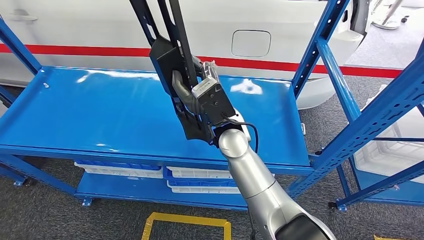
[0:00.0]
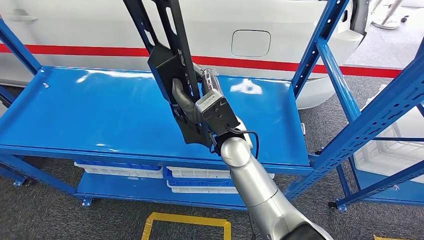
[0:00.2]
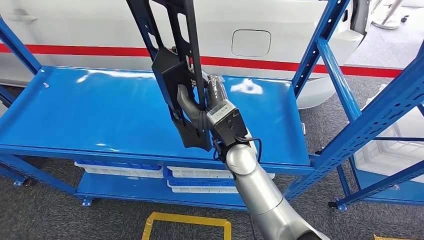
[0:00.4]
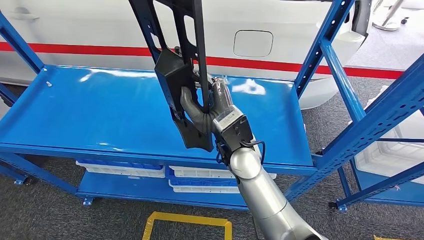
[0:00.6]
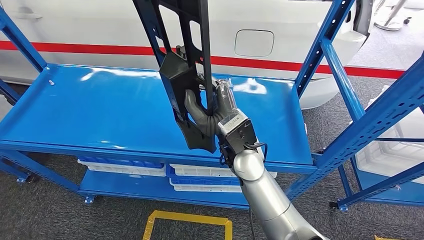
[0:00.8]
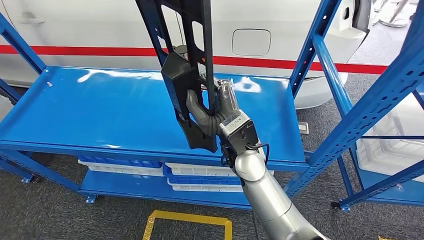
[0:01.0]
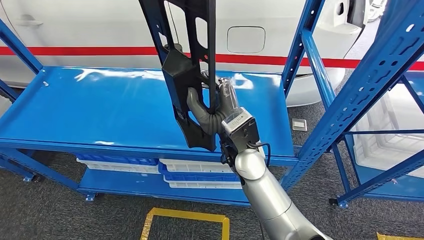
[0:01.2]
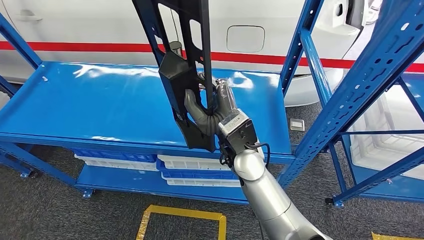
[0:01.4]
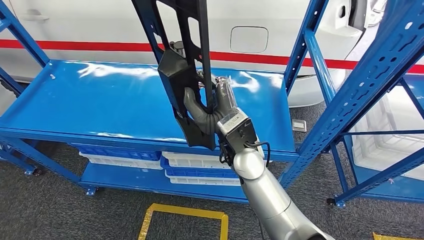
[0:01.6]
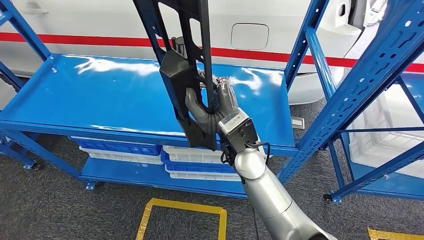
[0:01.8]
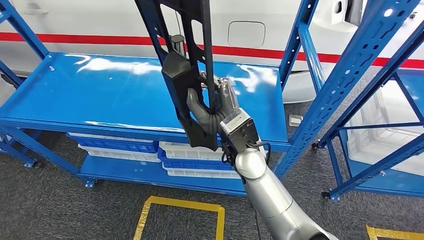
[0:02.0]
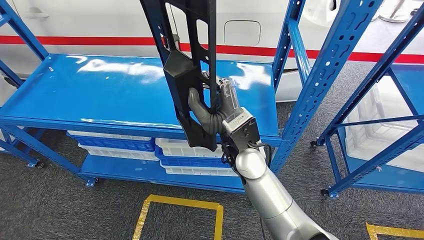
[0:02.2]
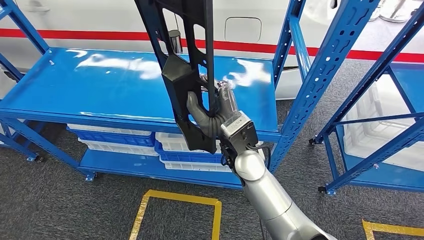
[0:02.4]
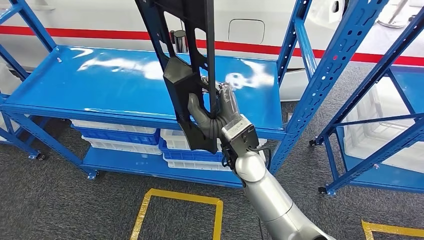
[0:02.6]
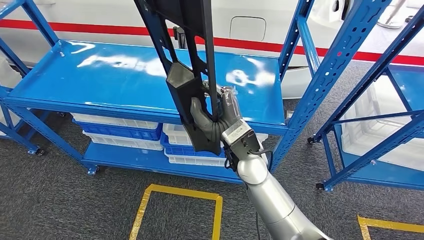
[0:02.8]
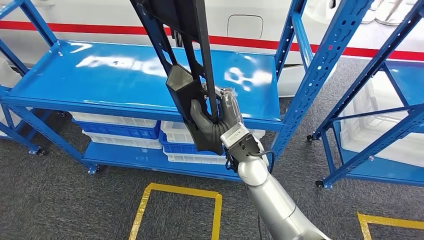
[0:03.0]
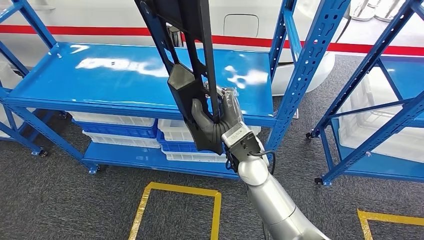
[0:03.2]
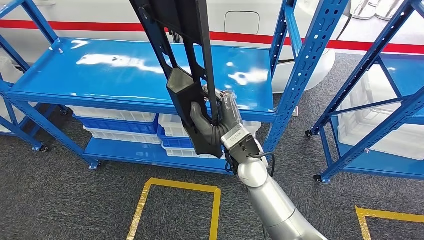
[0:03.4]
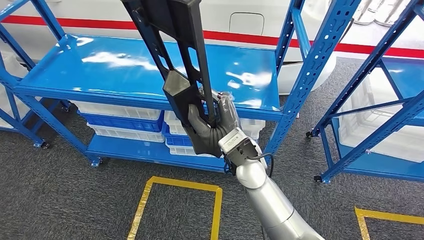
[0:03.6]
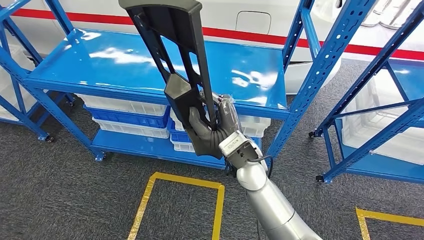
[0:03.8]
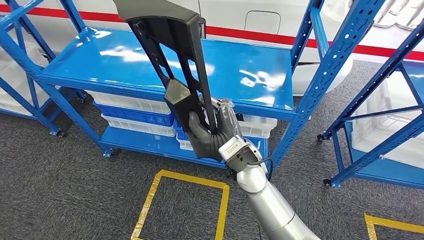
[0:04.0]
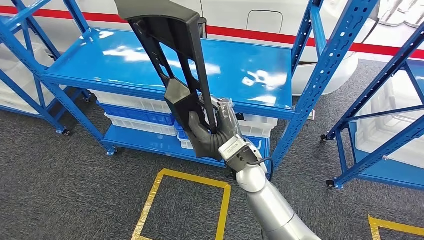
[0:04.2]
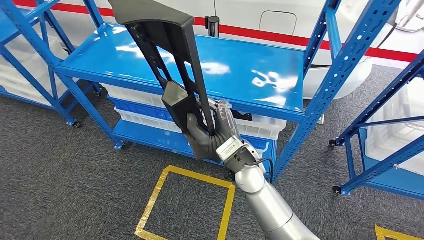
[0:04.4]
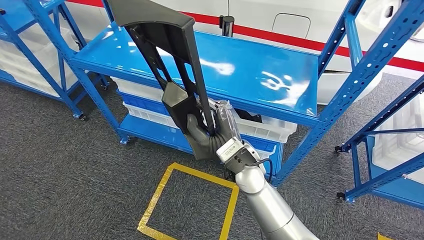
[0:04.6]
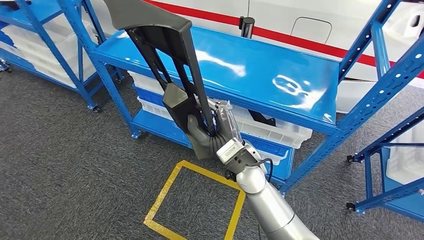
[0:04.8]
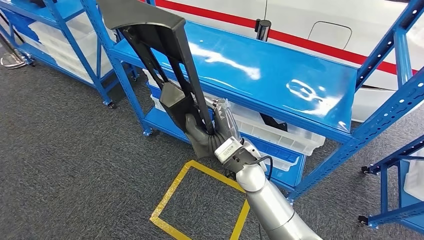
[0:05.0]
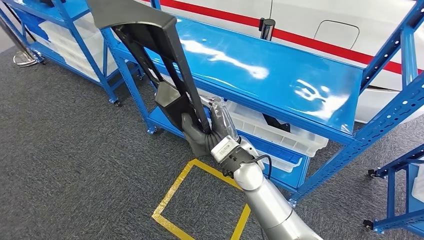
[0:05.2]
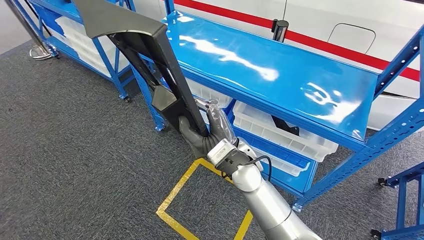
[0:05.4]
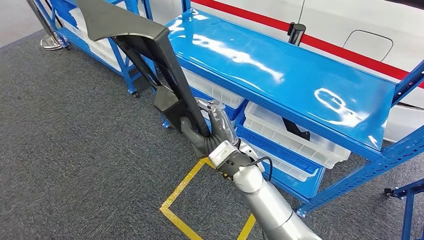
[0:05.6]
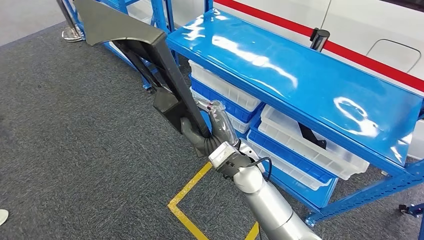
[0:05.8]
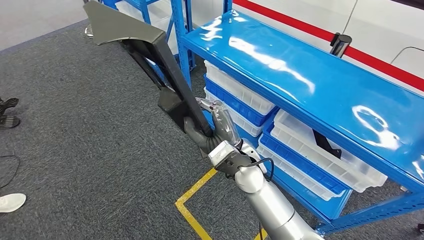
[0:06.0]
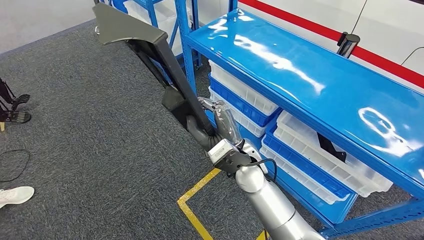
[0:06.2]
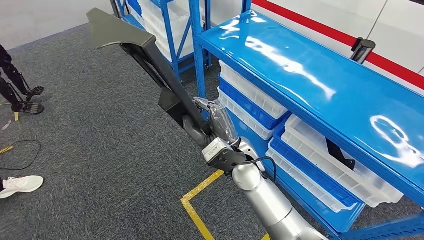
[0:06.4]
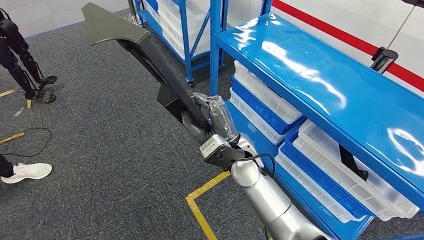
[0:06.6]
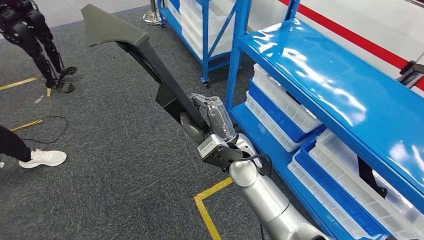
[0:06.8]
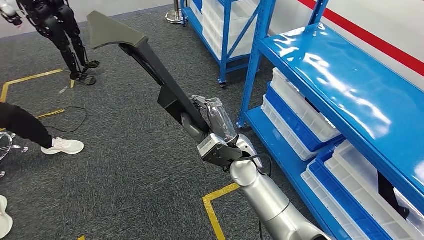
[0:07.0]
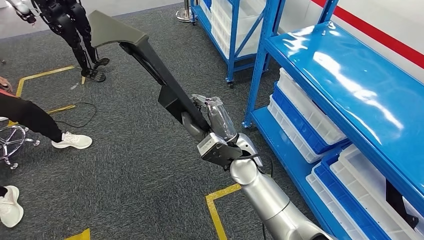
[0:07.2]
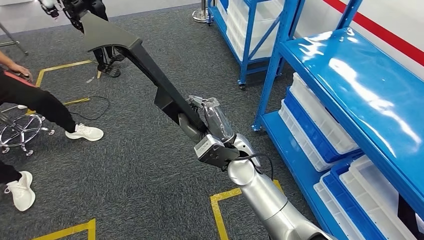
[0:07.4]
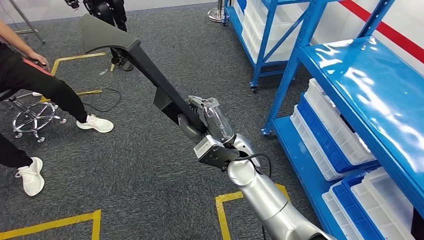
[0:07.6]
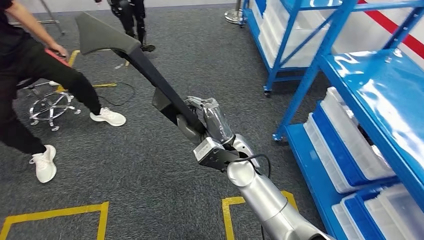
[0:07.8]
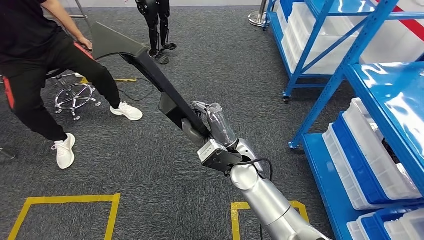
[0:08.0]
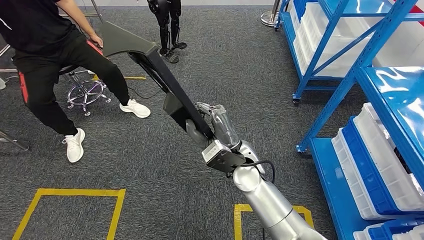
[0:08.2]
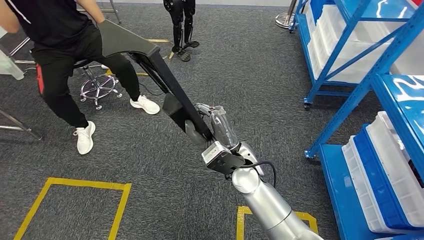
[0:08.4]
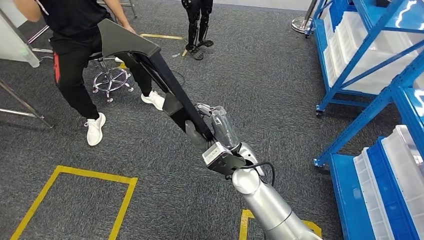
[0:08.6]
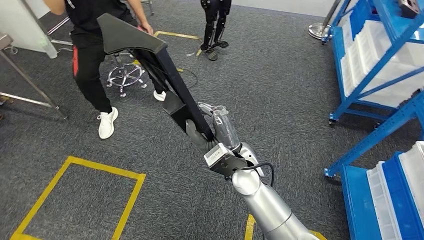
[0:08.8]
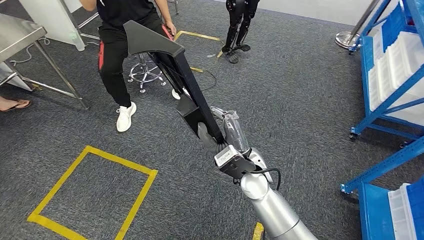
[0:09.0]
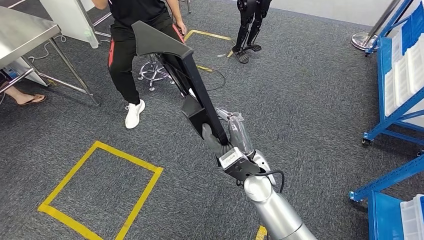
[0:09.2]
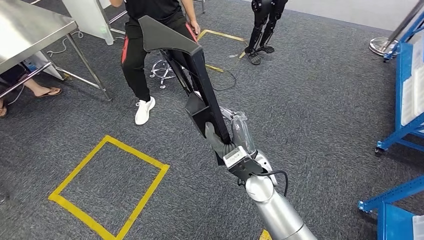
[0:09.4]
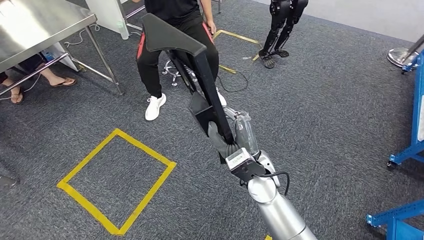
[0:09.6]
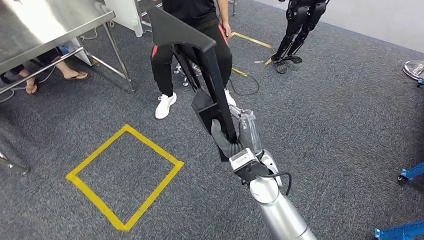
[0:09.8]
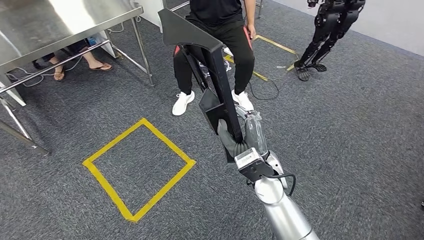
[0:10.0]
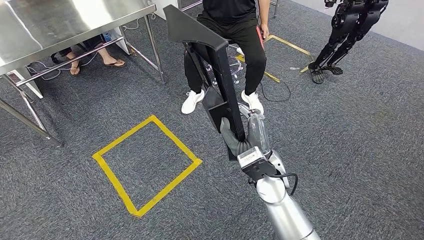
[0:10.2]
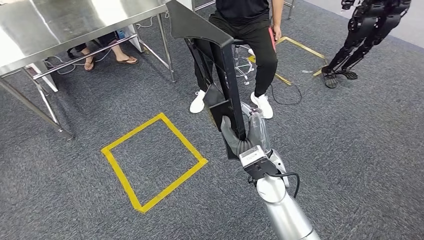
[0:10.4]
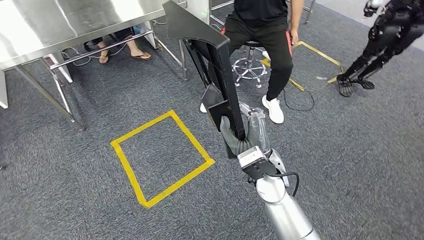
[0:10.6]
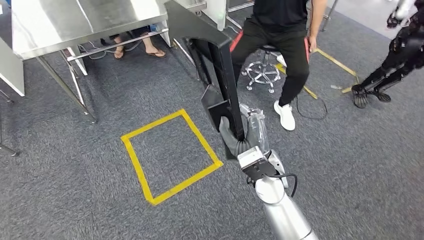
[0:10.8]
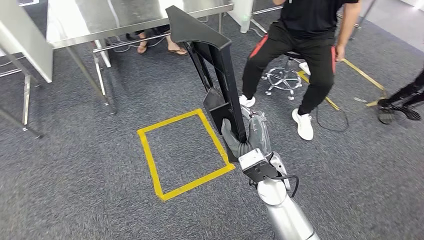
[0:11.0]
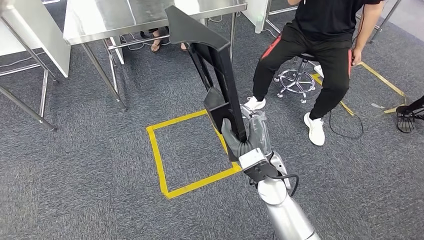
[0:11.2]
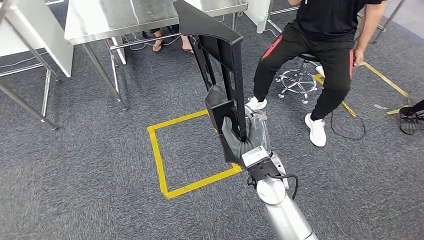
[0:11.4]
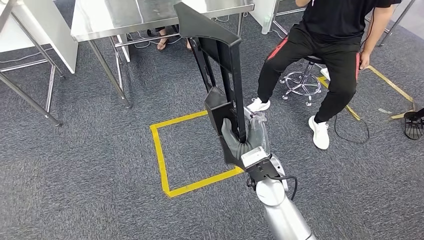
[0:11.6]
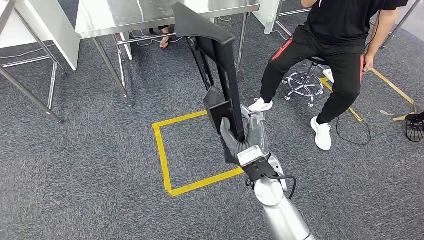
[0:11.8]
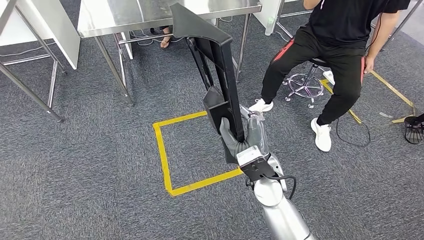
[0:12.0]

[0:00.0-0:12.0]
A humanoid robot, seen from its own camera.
Step, 0:00.0 to 0:04.4: Pick up the large material from the shelf.

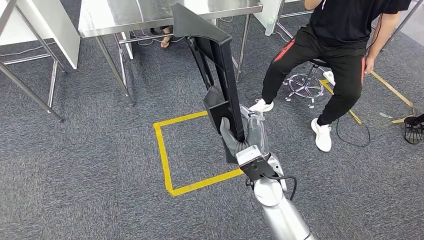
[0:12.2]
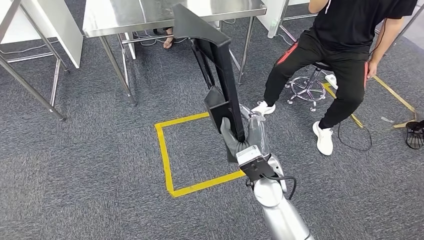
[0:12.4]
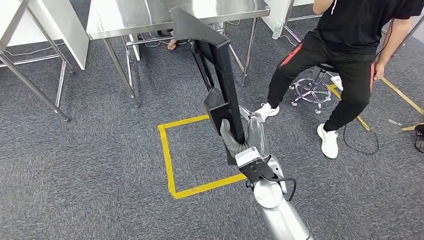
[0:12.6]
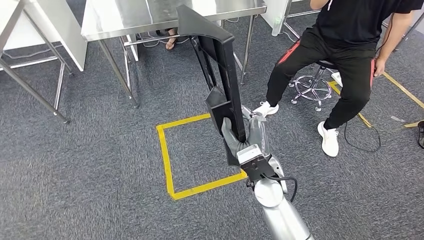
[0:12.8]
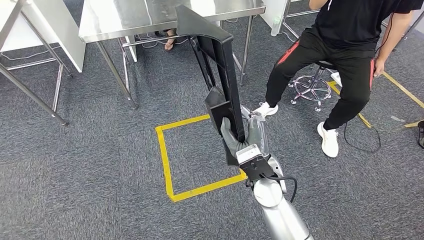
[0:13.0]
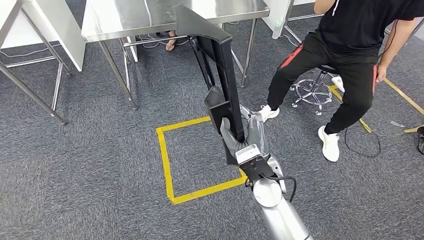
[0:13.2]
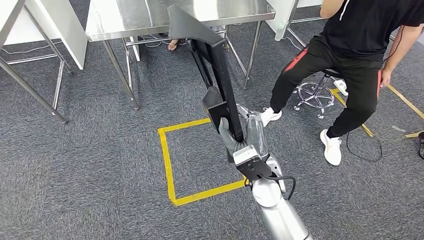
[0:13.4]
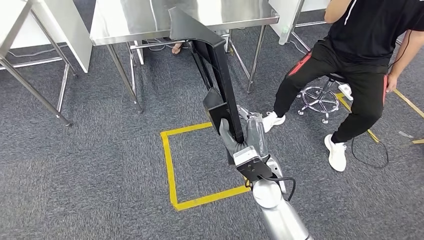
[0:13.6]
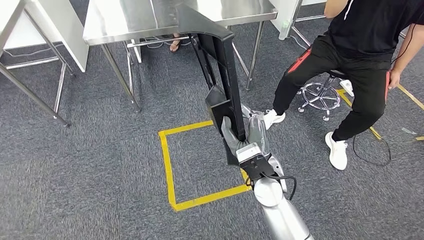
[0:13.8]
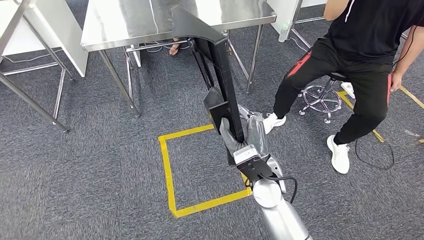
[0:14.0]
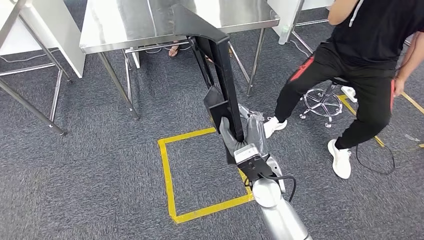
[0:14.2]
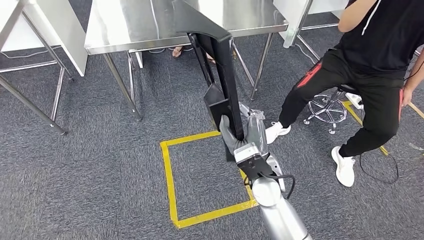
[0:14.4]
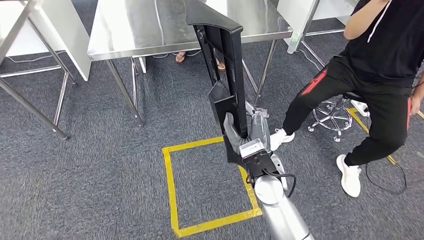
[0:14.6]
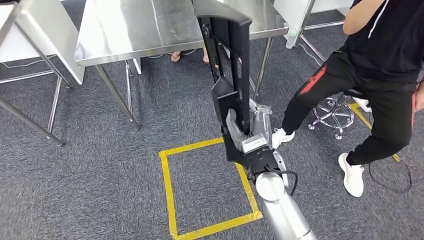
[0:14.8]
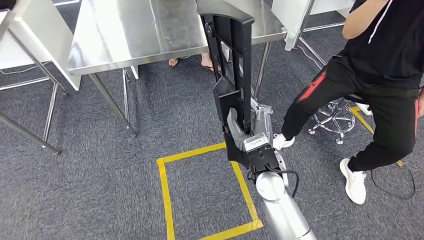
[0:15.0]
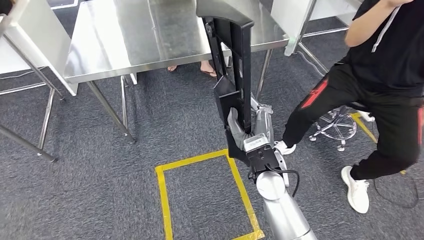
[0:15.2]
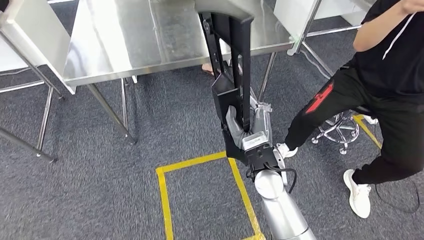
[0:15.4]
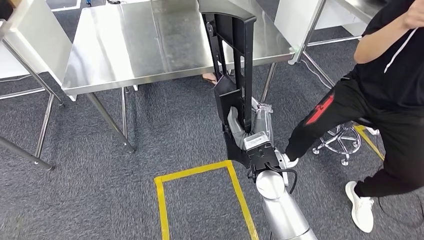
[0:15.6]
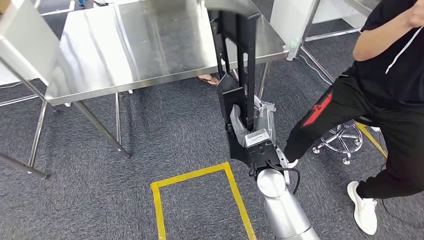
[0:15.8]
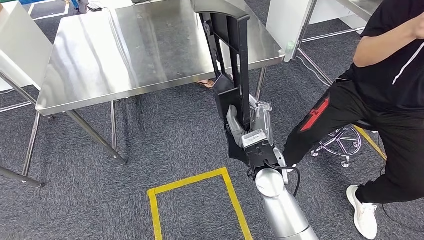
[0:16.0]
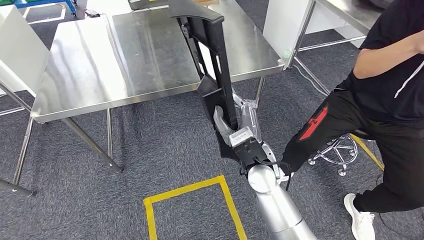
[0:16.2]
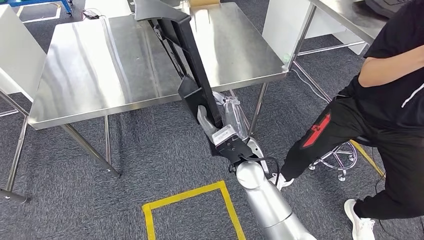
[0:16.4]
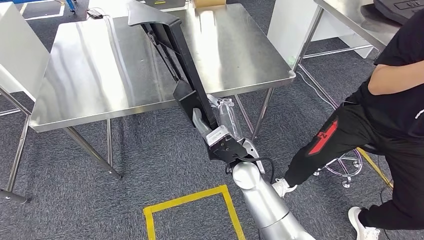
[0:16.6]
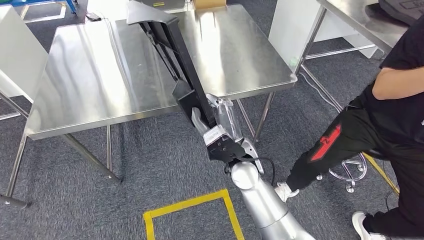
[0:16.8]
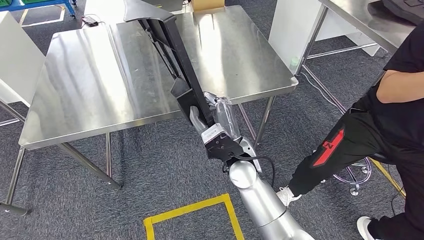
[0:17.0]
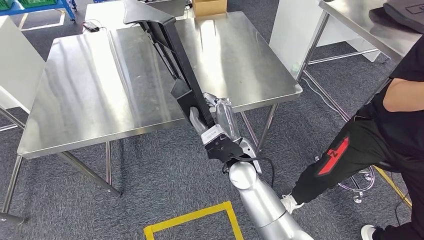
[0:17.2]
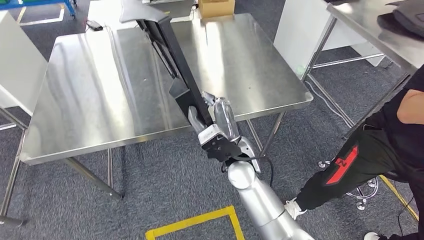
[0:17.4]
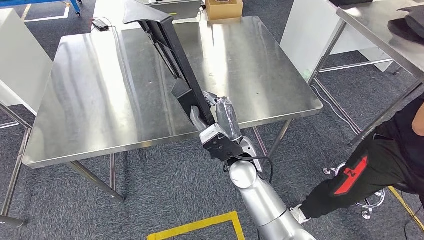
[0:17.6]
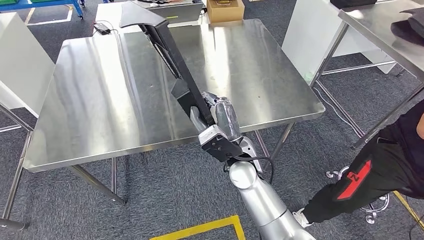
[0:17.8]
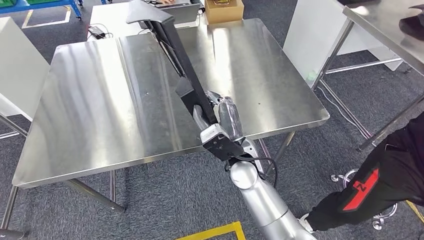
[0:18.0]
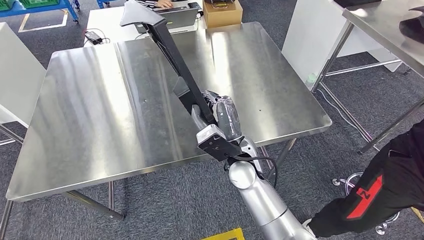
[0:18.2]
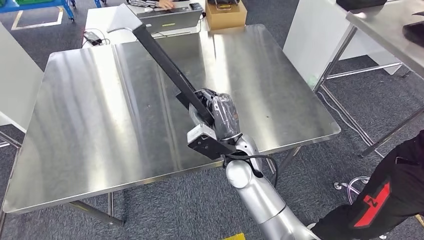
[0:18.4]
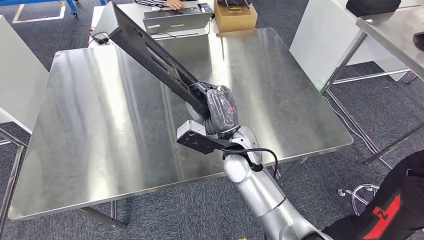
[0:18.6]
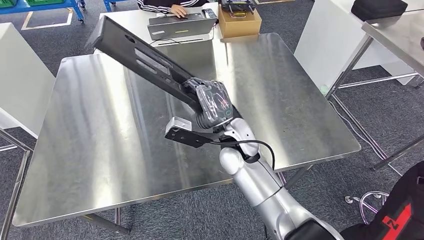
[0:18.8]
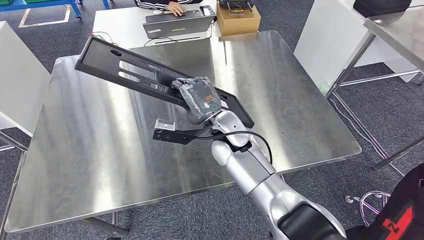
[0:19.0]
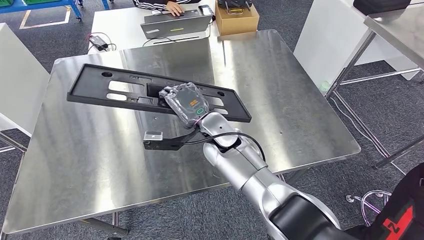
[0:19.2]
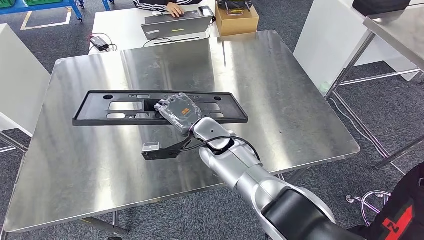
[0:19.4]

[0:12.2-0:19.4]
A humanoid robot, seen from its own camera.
Step, 0:12.2 to 0:16.8: Move the large material to the workbench.
